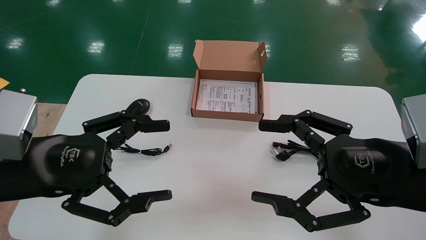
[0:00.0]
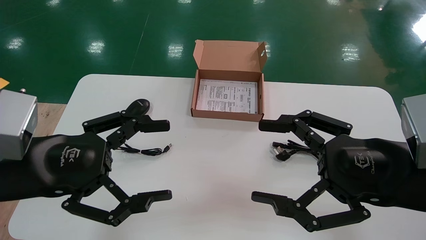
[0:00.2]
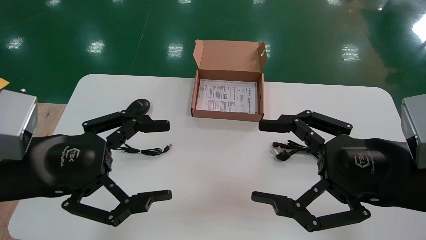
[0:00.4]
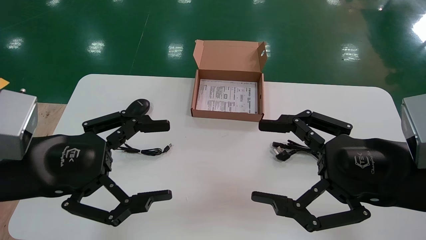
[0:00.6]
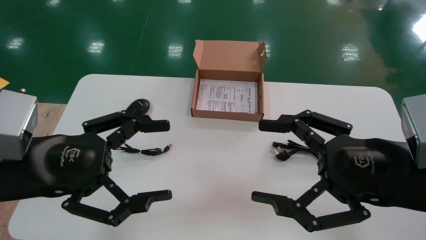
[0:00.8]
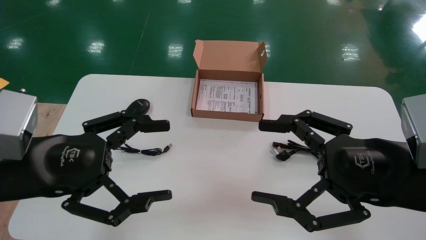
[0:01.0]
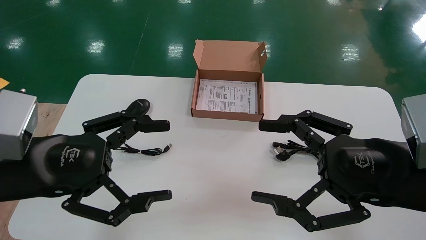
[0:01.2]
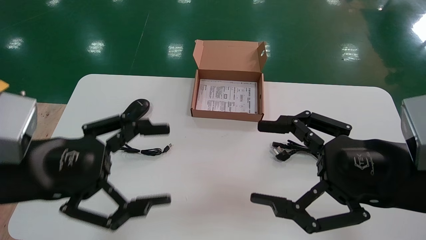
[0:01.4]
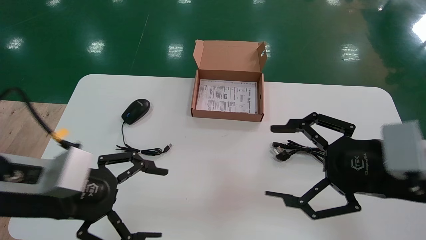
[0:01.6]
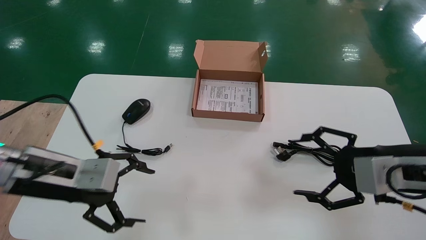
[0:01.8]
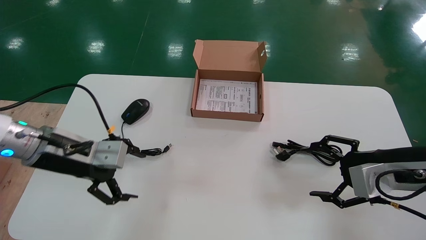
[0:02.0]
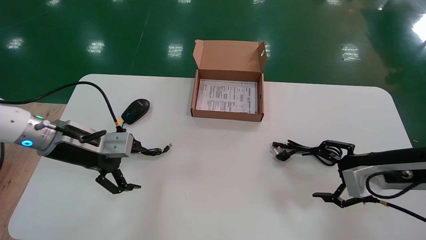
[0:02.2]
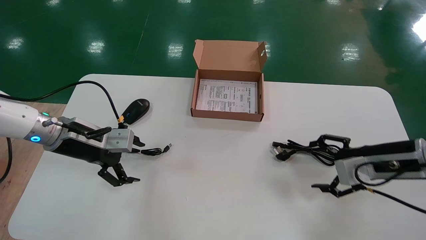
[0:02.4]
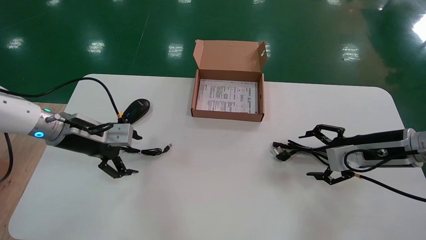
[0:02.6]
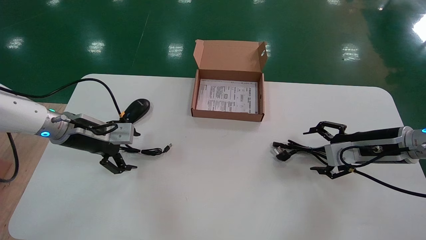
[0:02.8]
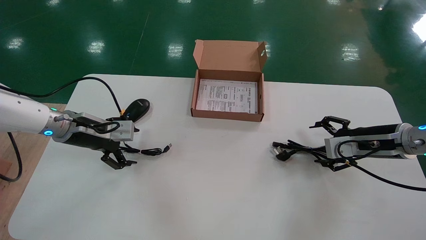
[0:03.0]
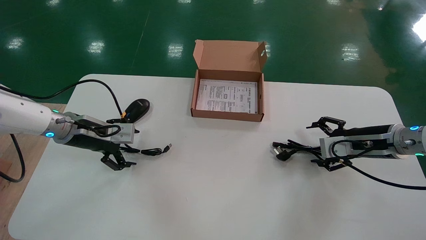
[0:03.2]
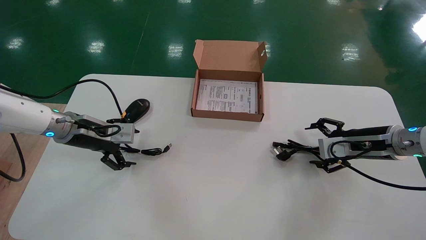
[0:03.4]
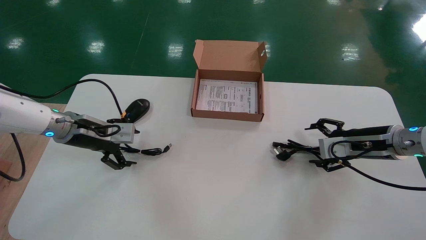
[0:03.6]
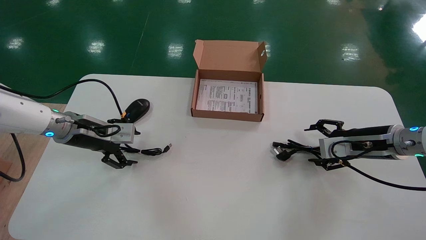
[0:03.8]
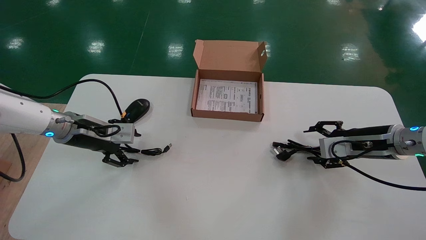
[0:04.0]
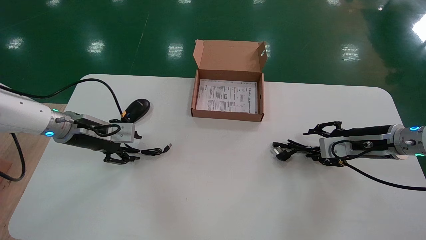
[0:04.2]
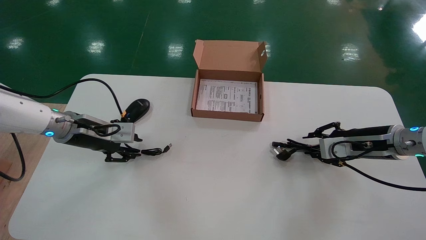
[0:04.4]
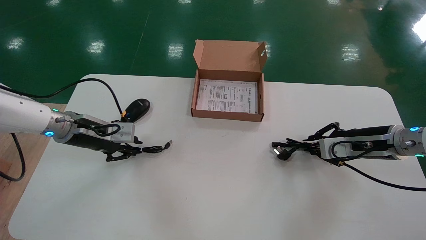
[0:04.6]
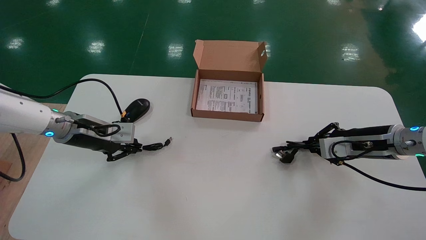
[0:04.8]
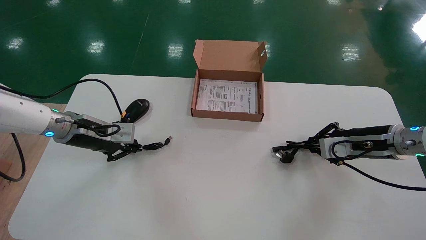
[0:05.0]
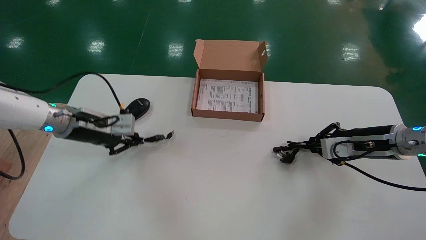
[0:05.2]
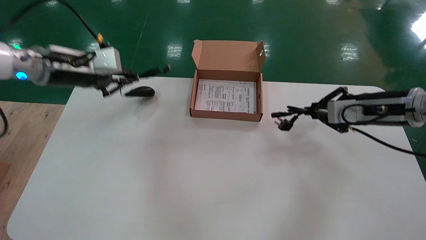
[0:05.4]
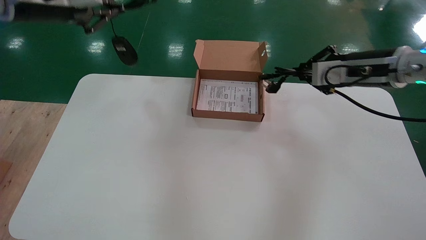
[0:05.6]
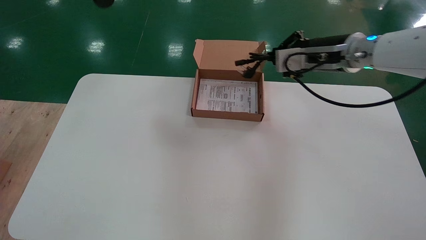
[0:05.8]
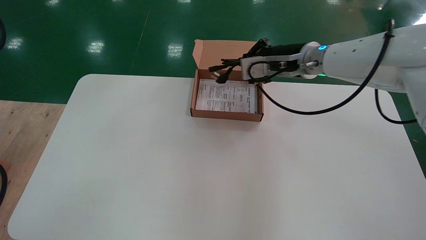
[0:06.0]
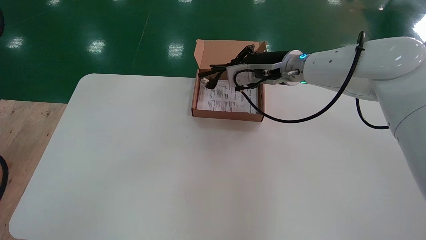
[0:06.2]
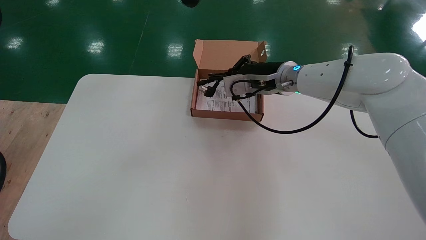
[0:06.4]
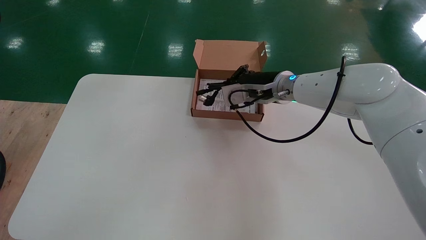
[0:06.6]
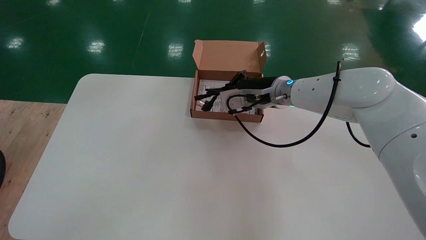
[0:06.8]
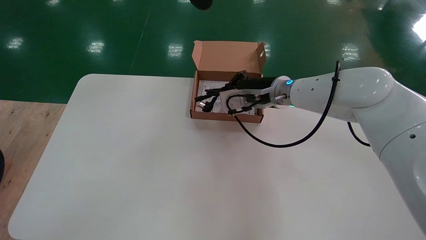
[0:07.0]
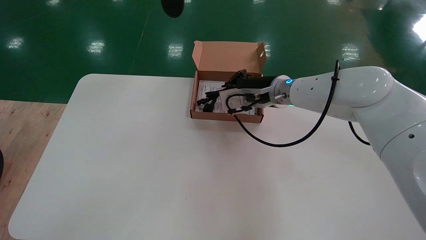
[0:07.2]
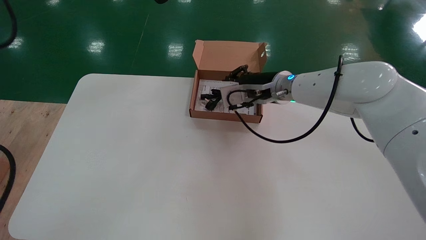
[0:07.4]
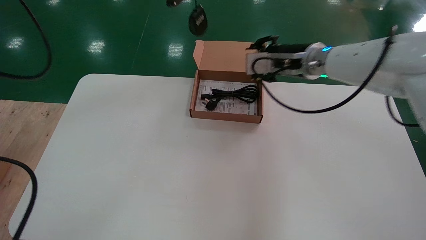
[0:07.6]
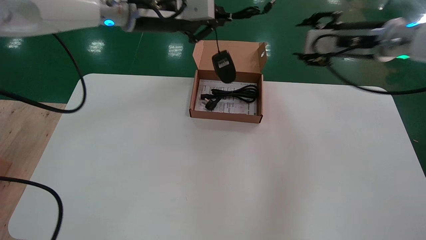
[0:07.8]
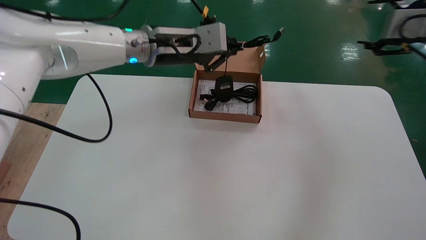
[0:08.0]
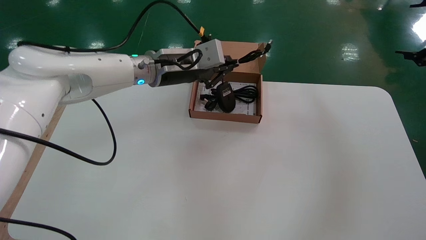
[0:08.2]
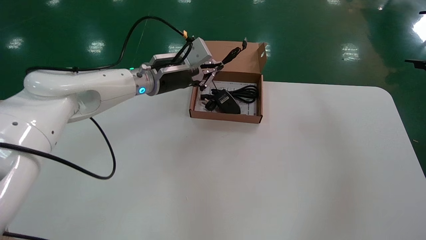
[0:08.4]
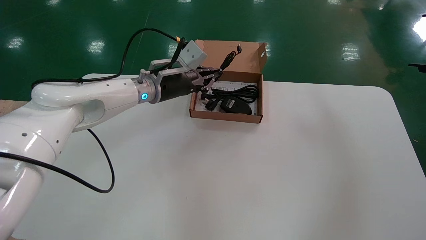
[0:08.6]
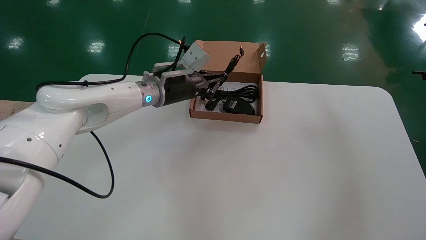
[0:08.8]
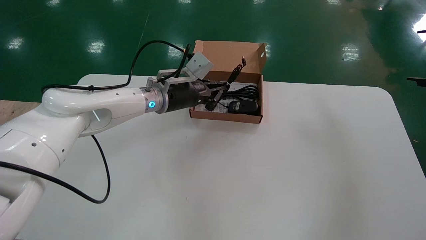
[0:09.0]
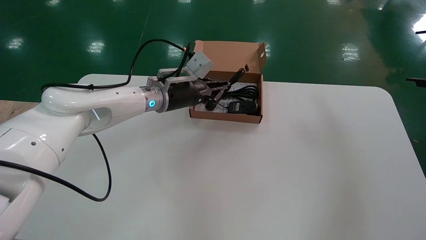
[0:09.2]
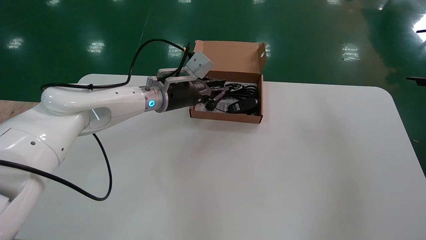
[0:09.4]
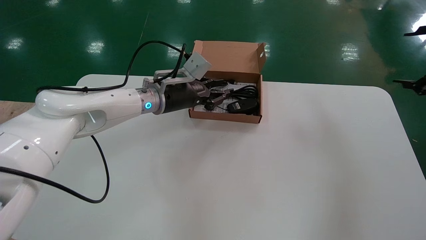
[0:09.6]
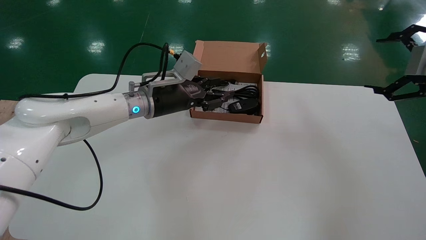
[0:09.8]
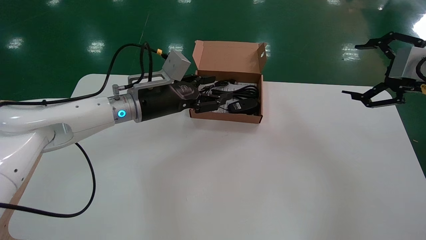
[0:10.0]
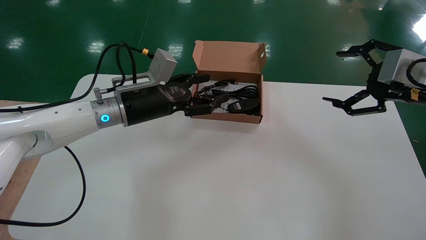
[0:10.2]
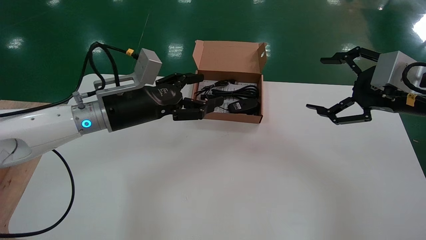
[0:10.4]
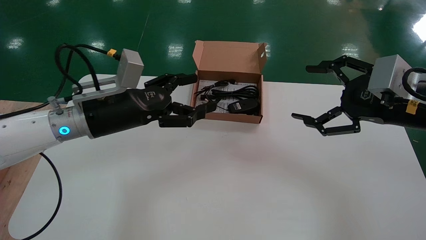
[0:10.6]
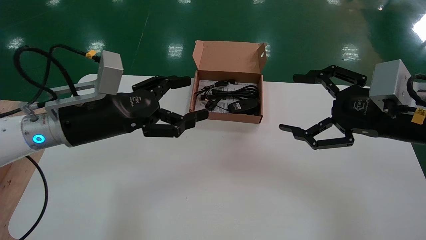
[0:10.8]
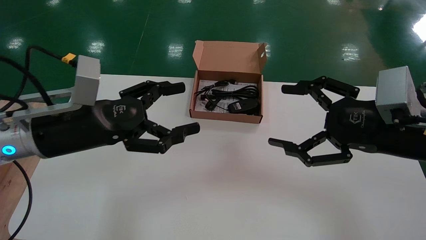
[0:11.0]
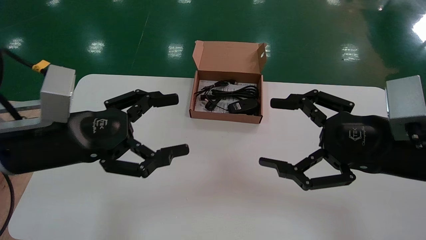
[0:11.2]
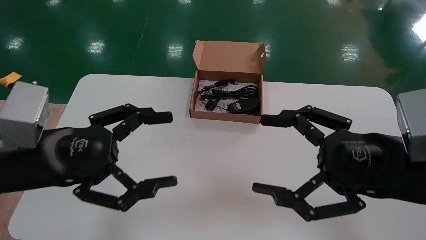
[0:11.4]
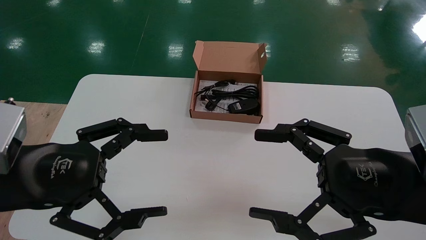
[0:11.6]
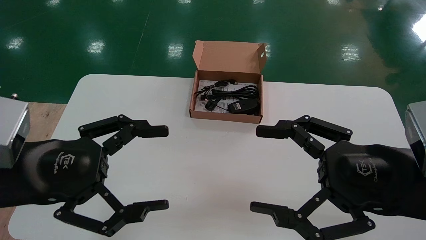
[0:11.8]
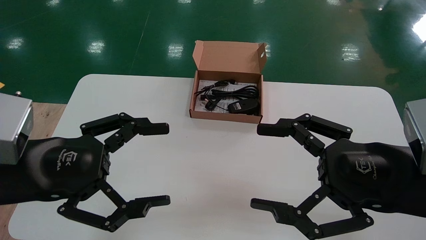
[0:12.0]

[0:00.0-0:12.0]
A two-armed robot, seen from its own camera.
Step, 0:01.8 to 0:05.2: Simultaneously pick up the mouse and power cord from the accessory packaging area.
Step, 0:05.4 to 0:10.0: Place the mouse and power cord into the box.
0:00.0 to 0:01.6: The left gripper shifts by roughly 5 cm.
0:01.6 to 0:03.0: The right gripper shifts some 20 cm forward and to the right, while the left gripper travels forward by approximately 20 cm.
0:03.0 to 0:04.4: The right gripper closes up, while the left gripper closes up.
0:04.4 to 0:06.0: The left gripper shifts about 35 cm upward, and closes. The right gripper heads to the left and upward, covering about 25 cm, and closes.
0:06.0 to 0:07.6: The left gripper shifts roughly 10 cm to the right and downward; the right gripper moves roughly 5 cm to the left and comes back.
0:07.6 to 0:09.0: The left gripper shifts about 25 cm downward and forward; the right gripper travels to the right and backward by some 30 cm, and opens its fingers.
0:09.0 to 0:10.4: The left gripper is displaced backward and to the left by some 15 cm, and opens its fingers. Meanwhile the right gripper moves to the left and downward, some 15 cm.
0:10.4 to 0:12.0: The right gripper heads backward, to the left and downward, covering some 15 cm, while the left gripper travels backward by some 20 cm.

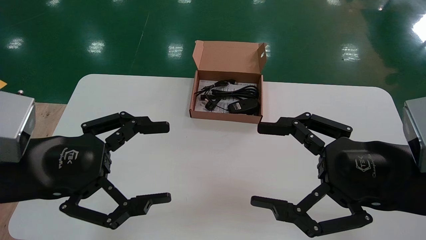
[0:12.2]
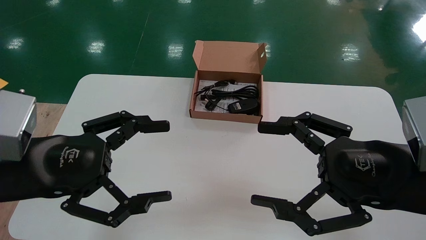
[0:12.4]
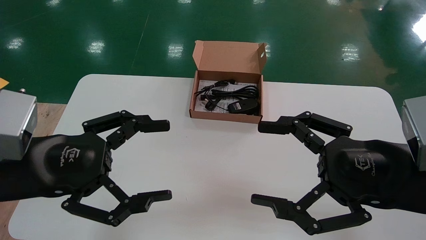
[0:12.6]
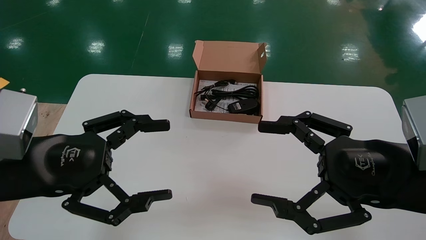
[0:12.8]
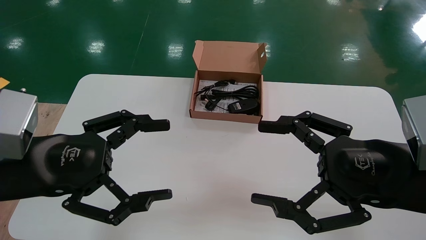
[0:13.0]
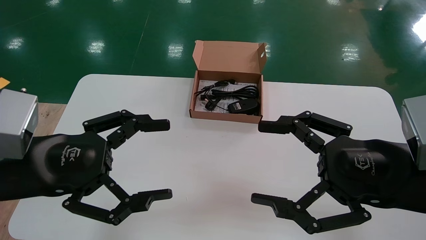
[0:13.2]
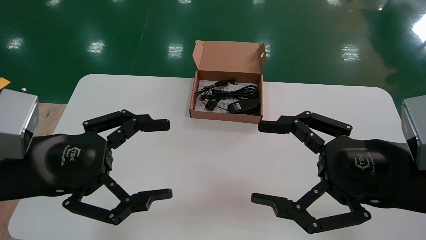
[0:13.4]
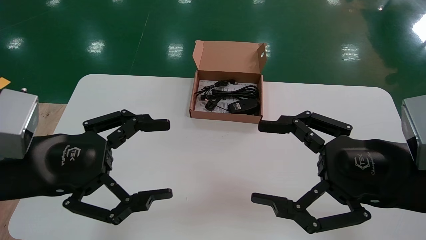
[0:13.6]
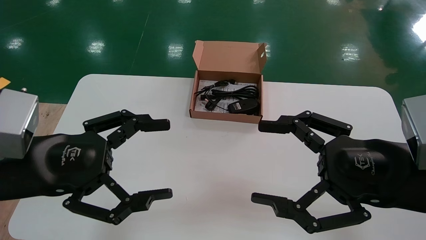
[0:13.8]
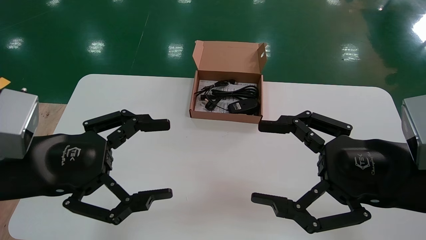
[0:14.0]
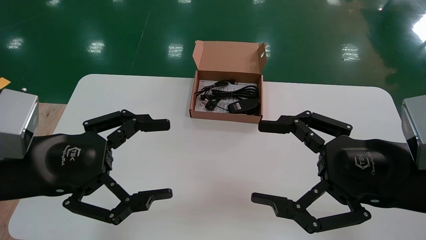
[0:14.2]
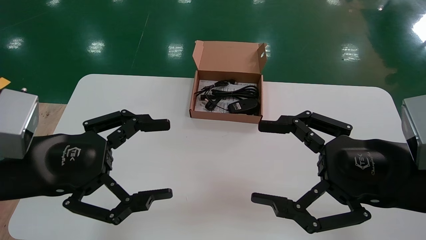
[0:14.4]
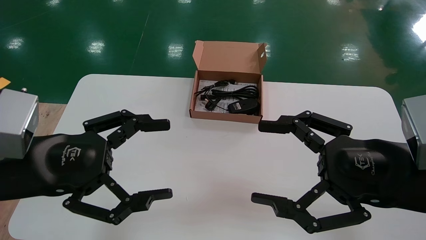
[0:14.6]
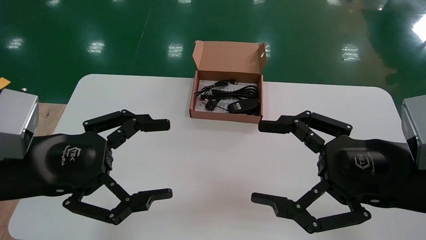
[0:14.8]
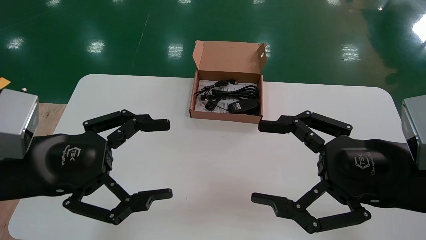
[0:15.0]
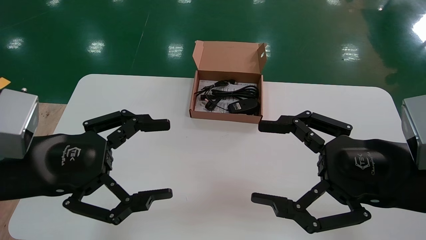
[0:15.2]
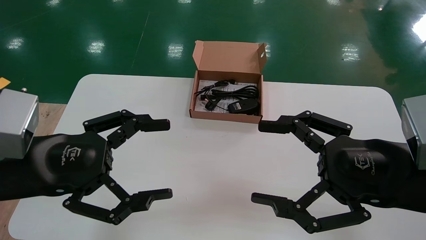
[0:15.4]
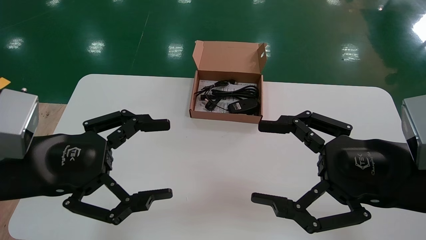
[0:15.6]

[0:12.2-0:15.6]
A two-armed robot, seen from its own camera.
0:12.2 to 0:15.6: Both grippers stay put.

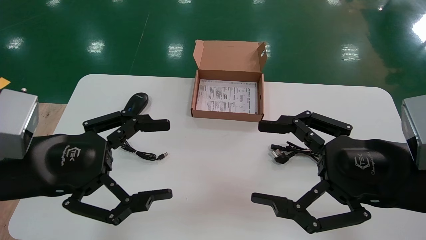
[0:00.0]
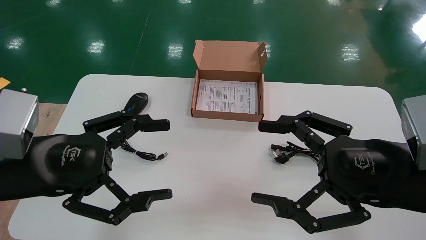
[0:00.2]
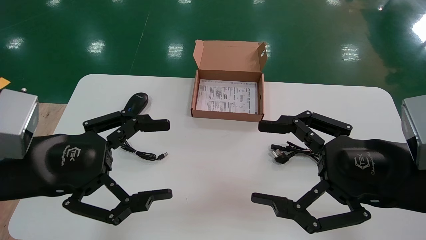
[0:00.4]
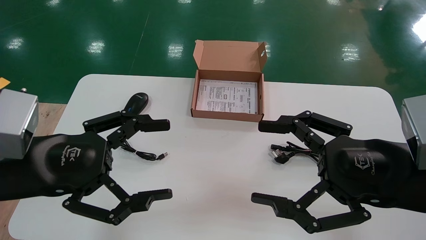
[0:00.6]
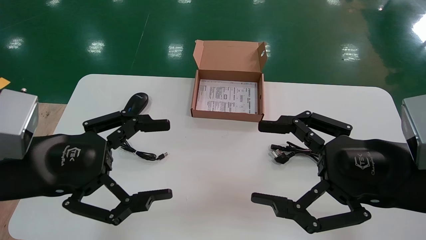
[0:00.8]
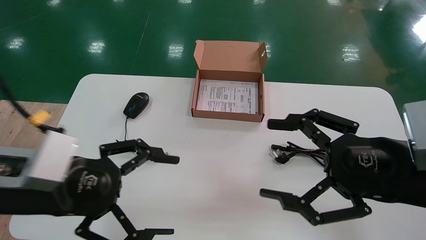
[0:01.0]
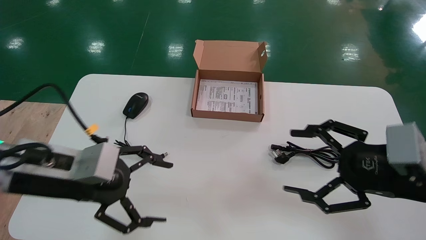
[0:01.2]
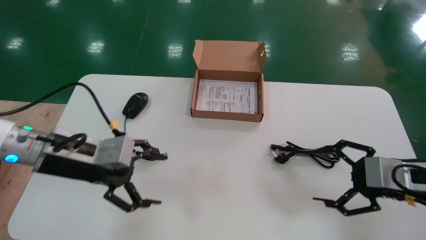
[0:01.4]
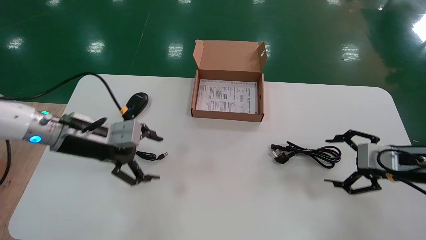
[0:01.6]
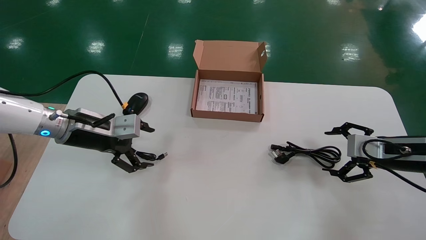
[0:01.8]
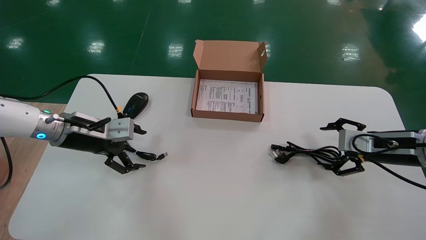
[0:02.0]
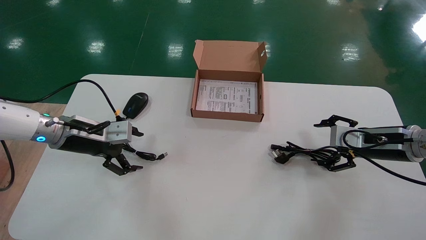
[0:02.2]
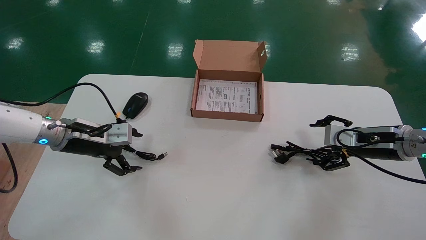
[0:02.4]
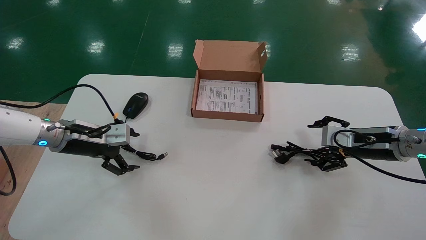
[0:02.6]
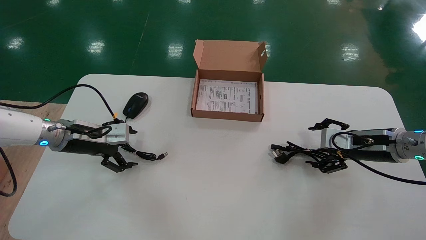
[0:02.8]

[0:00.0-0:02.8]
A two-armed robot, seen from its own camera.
0:00.0 to 0:01.4: The right gripper shifts some 15 cm to the right, forward and downward. Meanwhile the left gripper shifts roughly 10 cm forward.
0:01.4 to 0:02.8: The left gripper travels forward and to the left by approximately 10 cm. Meanwhile the right gripper is displaced forward by about 10 cm.
